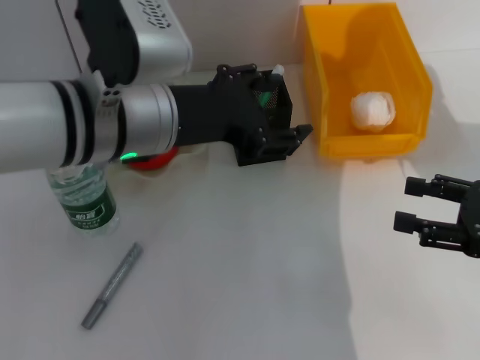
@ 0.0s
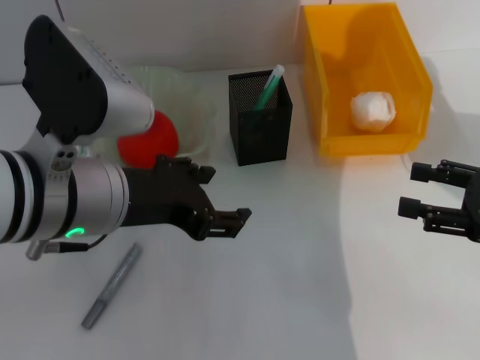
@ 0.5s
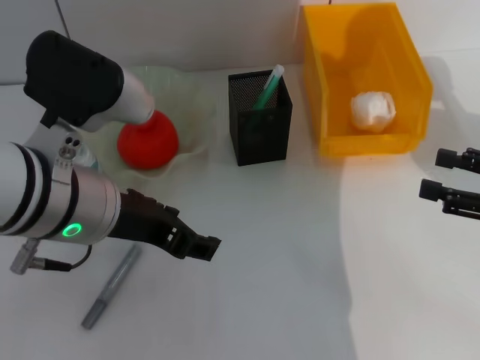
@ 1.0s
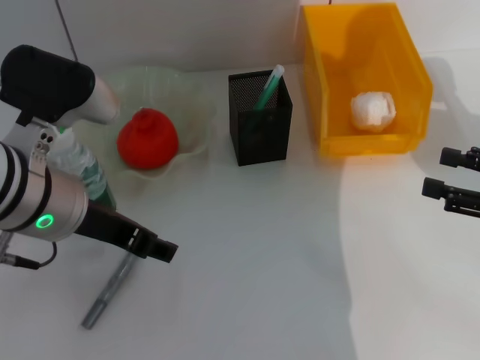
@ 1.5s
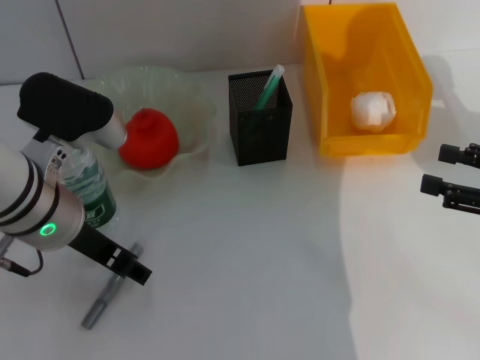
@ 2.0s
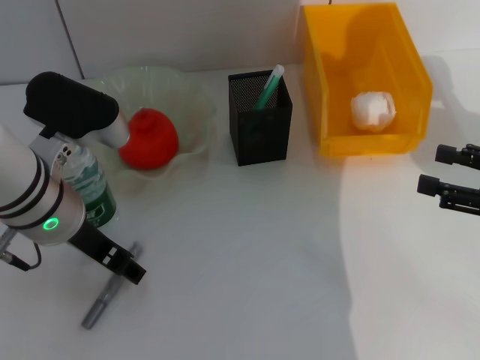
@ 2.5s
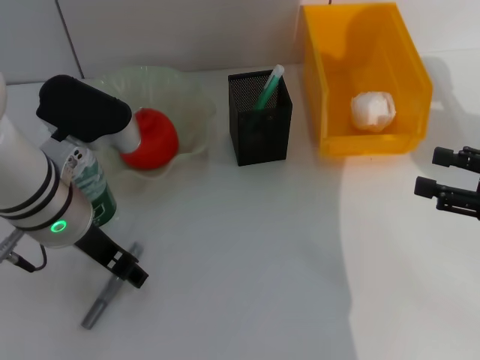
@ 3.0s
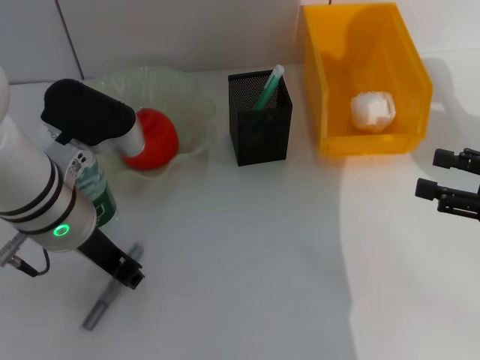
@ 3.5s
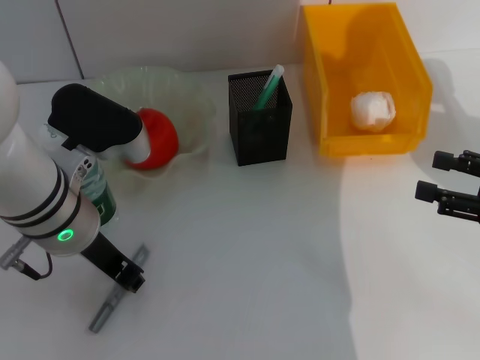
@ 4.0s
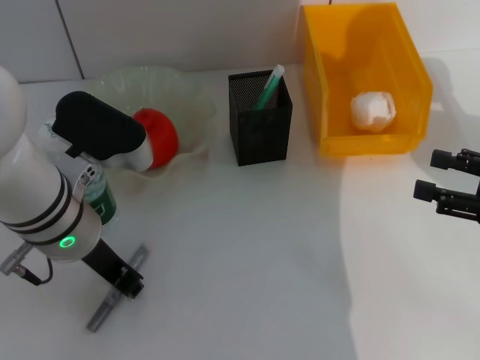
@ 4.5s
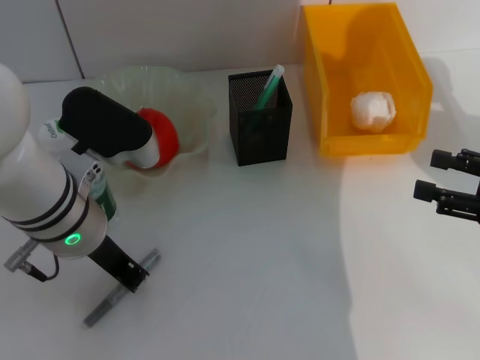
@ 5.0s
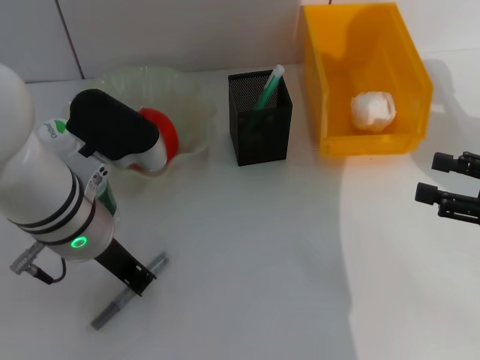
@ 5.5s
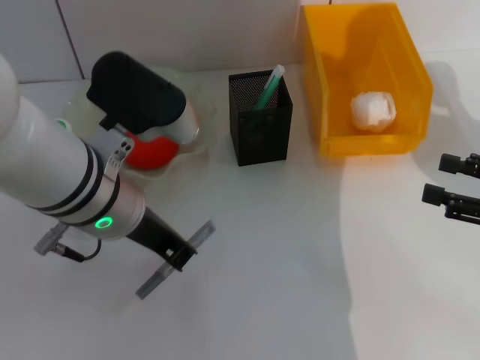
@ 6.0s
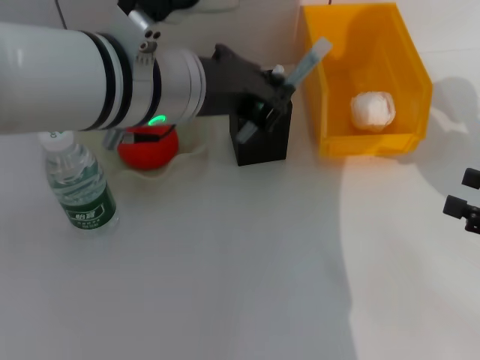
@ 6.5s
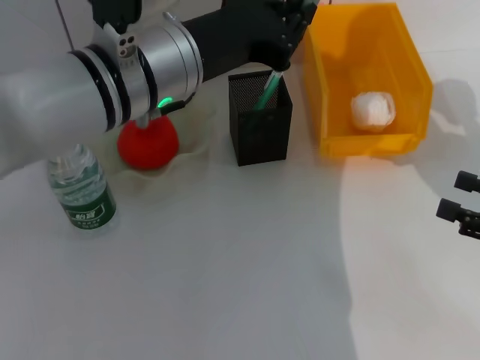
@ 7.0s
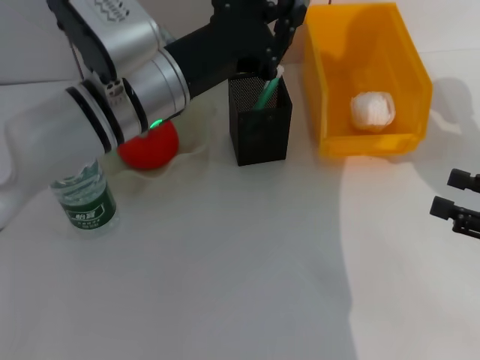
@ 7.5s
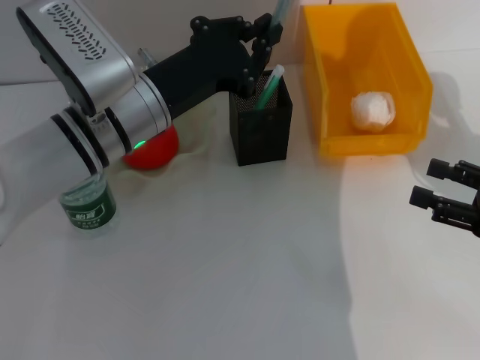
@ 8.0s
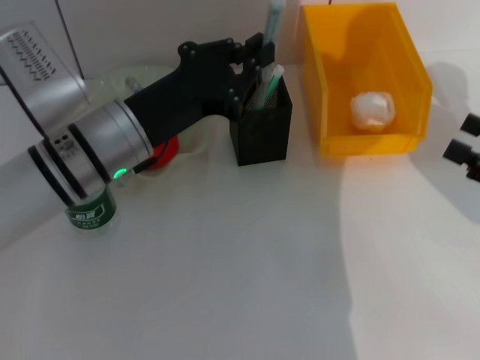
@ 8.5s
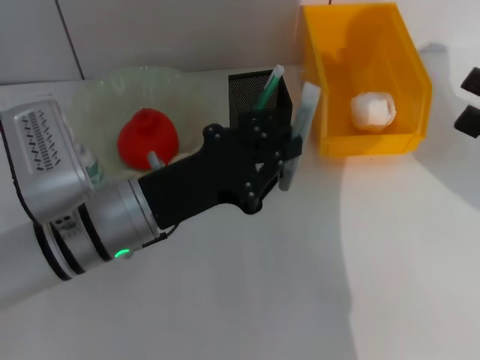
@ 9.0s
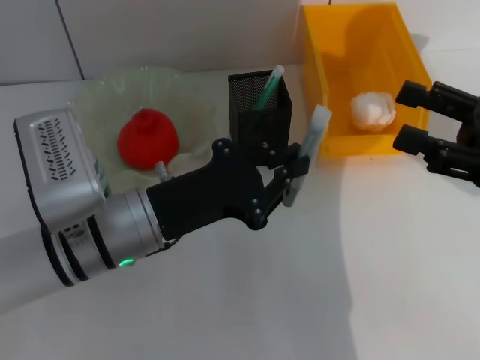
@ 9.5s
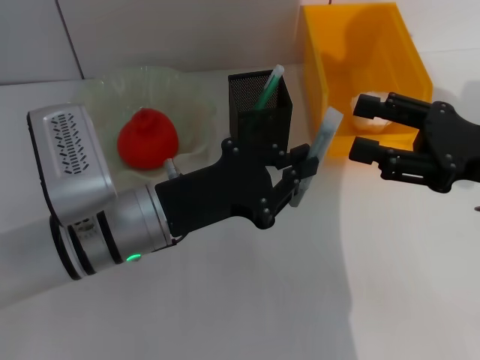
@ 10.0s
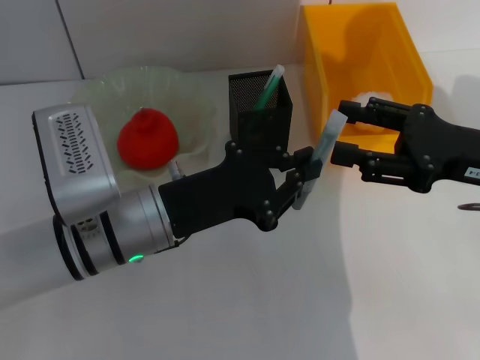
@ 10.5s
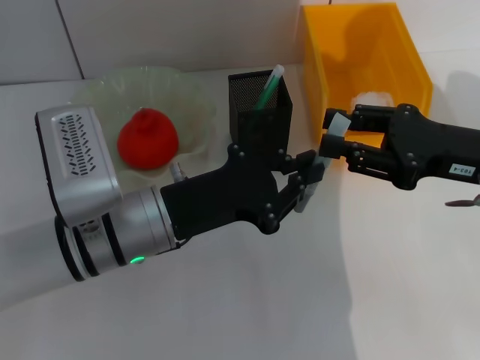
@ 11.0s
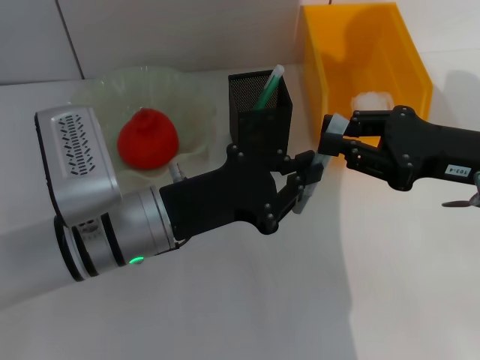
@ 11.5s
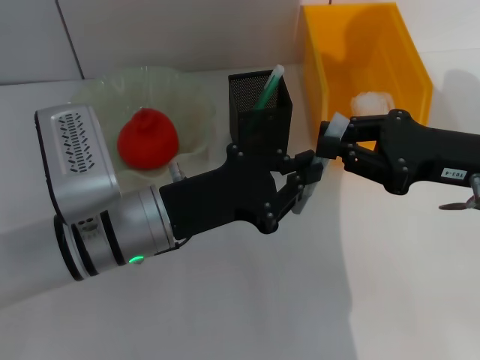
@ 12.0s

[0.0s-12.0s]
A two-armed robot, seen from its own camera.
Step, 0.5s to 4.5s: Grab the gray glue with the left hand.
0.0s to 2.0s: The left gripper shifts about 5 cm to the left.
2.0s to 4.0s: The left gripper closes its fingers.
4.0s to 6.0s: There are only small adjustments of the grippers.
6.0s to 8.0s: The left gripper shifts approximately 5 cm forward, and travels upward and back again, some 10 cm each way.
8.0s to 10.0s: The left gripper is displaced backward by about 10 cm, while the right gripper goes roughly 10 cm to the left and upward.
10.0s to 12.0s: The right gripper closes its fingers.

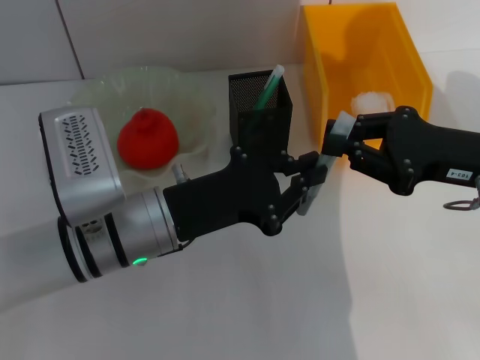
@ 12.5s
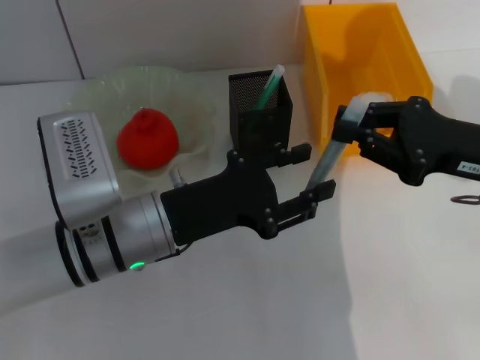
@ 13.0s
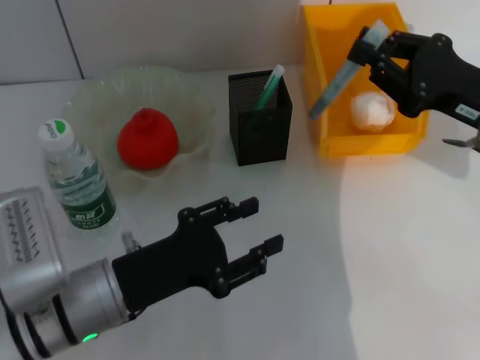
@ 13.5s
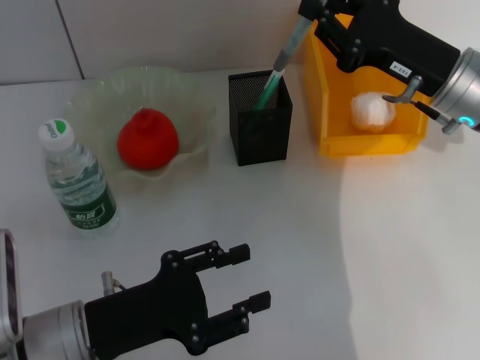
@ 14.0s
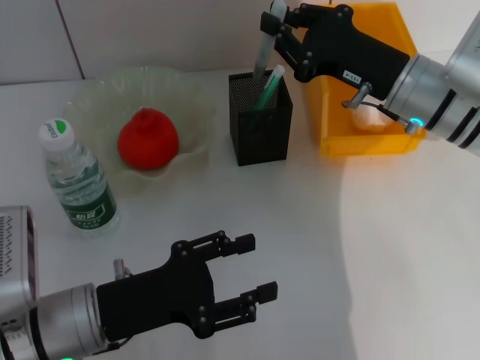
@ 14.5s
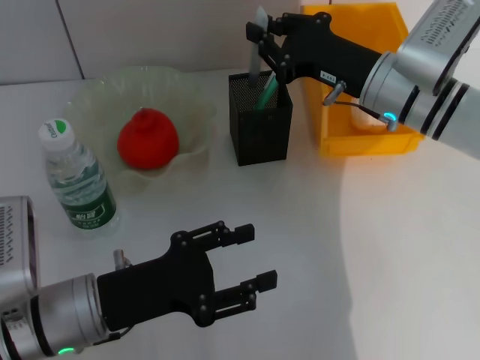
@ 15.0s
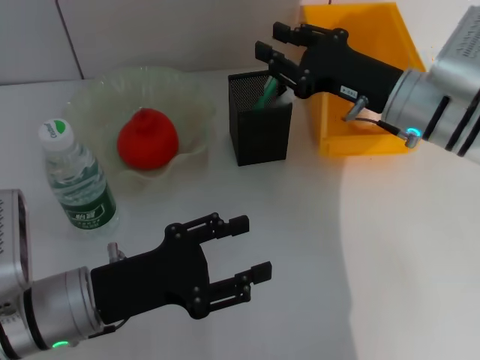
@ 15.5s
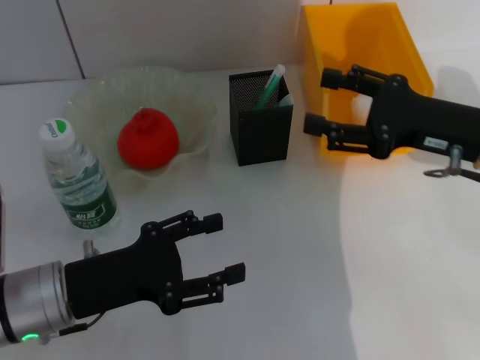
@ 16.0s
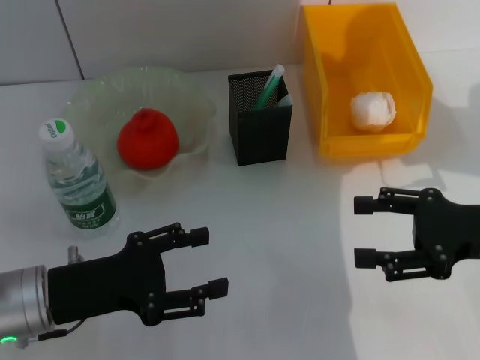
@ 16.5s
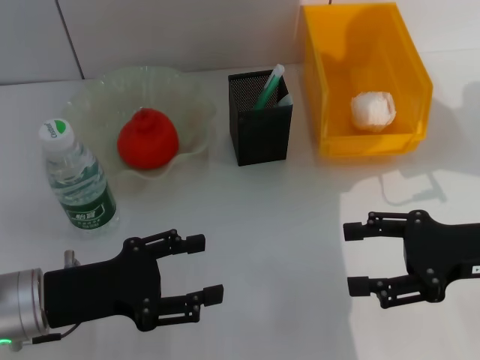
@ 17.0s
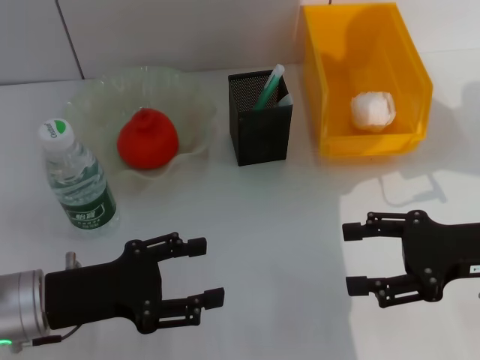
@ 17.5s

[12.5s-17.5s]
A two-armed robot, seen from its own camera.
Step, 13.5s to 15.5s: Place the gray glue into the pen holder with the right hand.
12.5s to 15.0s: The left gripper goes about 10 cm to the left and backward, and opens; the right gripper goes some 15 cm forward and to the left.
15.0s to 17.5s: The right gripper is displaced backward and to the right by approximately 20 cm, and opens. The left gripper changes place by roughly 5 cm.

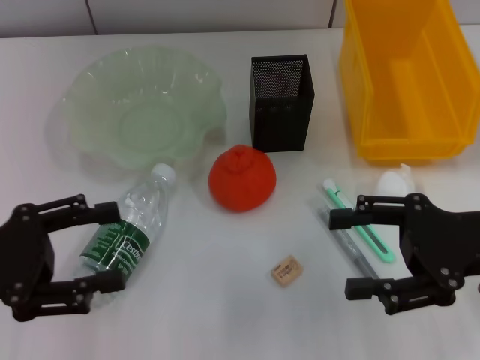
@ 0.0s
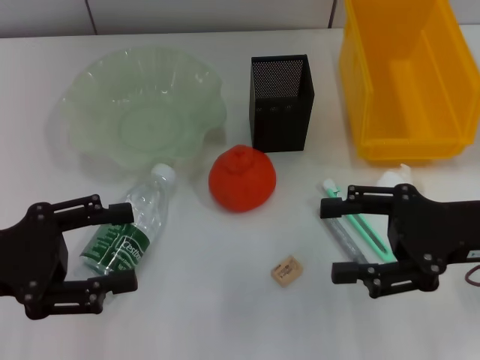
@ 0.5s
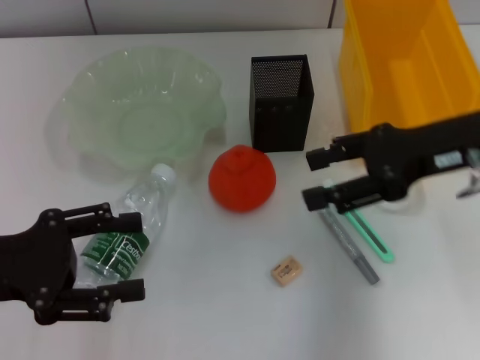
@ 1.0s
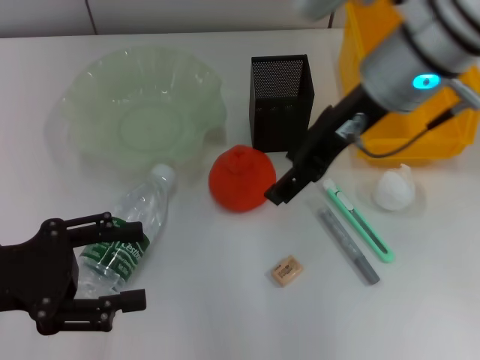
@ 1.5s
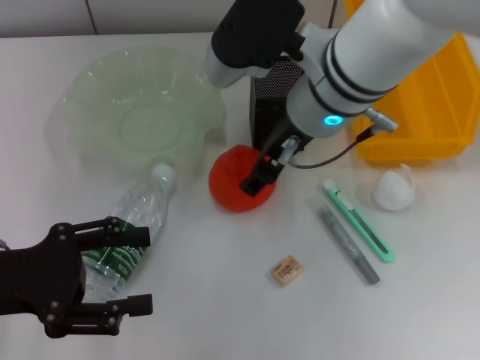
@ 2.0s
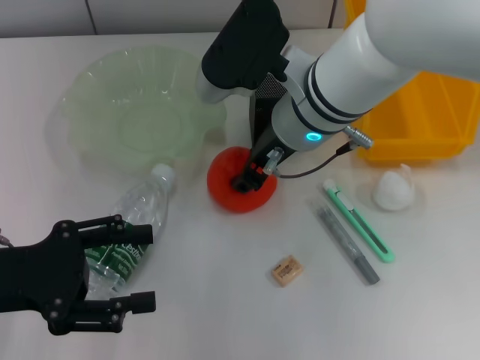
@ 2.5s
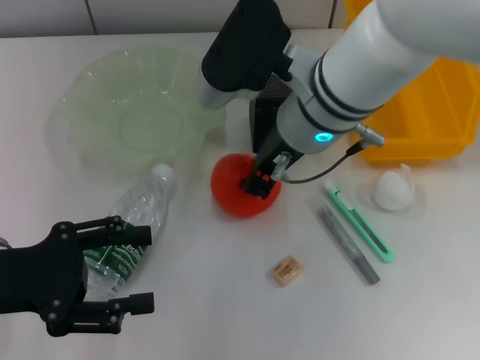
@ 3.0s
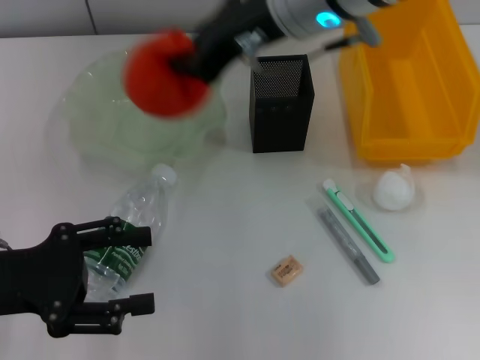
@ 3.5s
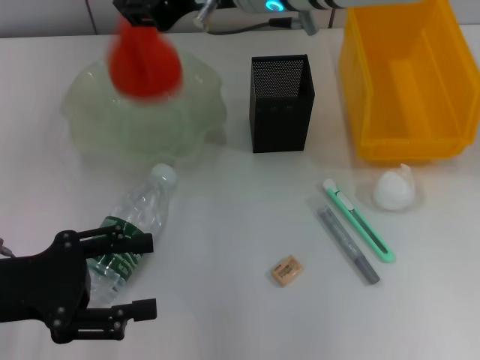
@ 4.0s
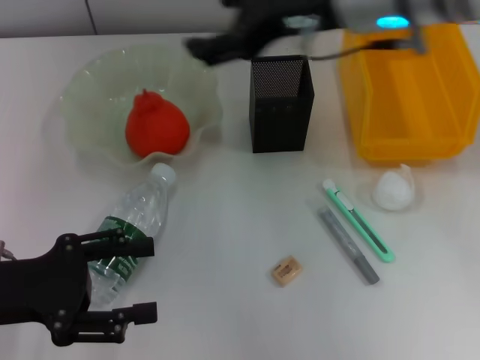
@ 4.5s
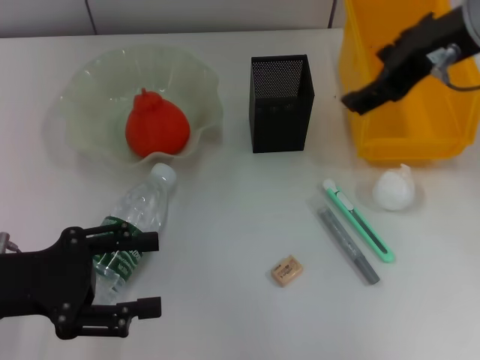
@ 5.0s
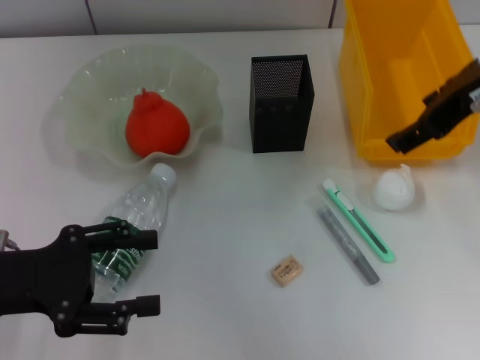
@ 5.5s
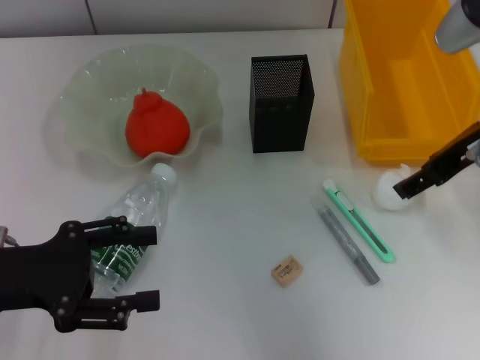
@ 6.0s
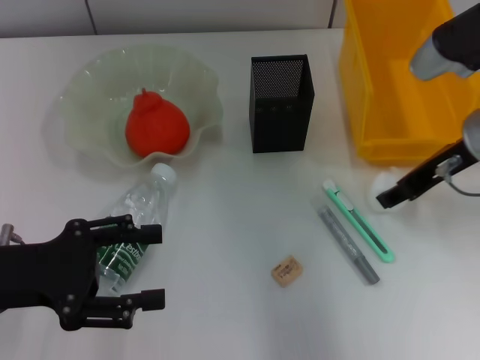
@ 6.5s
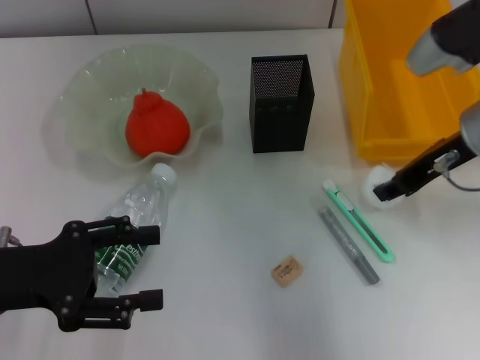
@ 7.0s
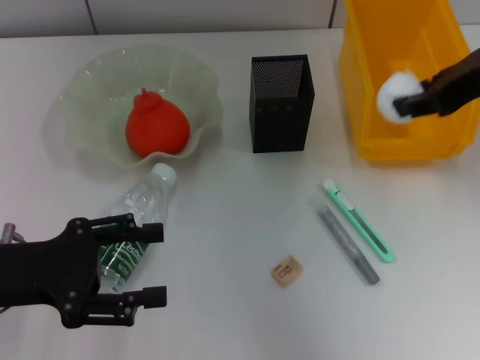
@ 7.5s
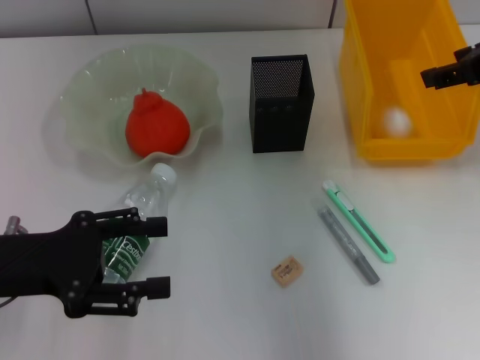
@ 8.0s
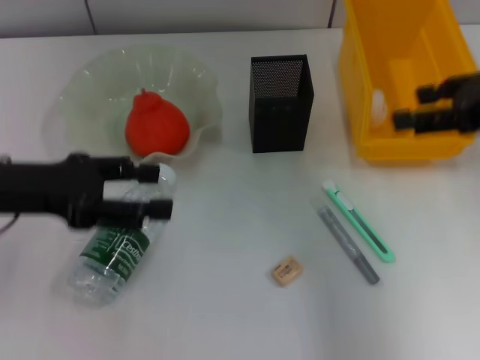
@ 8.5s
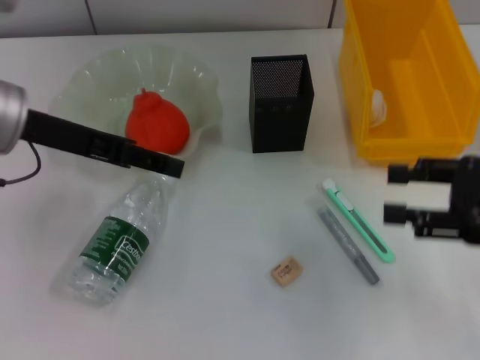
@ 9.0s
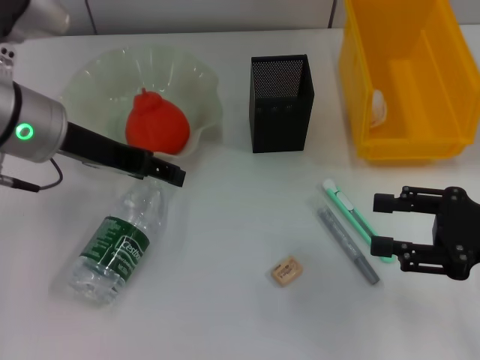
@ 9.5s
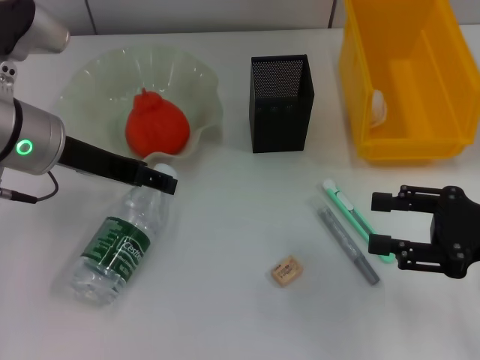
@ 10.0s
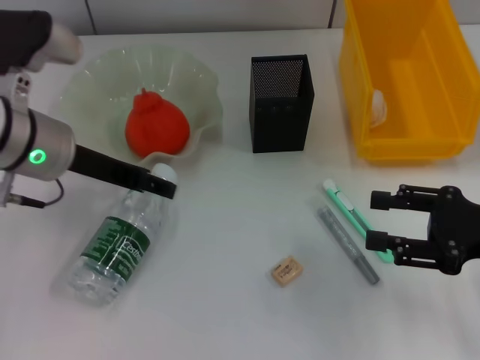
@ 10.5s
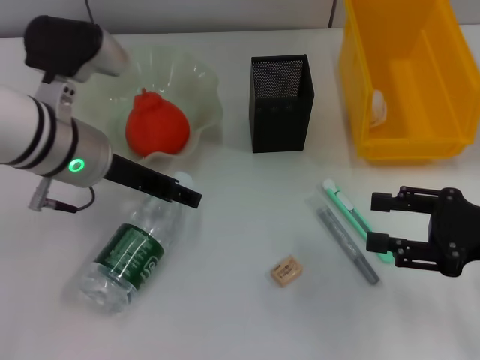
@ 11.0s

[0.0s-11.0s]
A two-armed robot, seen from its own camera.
Step, 0.0s to 2.5s: Grab the orange with the right hand.
Step, 3.0s to 4.0s: Place the orange into the fruit bowl with the right hand.
Step, 4.5s to 6.5s: Grab the paper ball with the right hand.
Step, 7.0s to 7.5s: Place the paper ball into the trash can with the right hand.
0.0s to 2.0s: The right gripper goes some 25 cm to the left and forward.
2.0s to 3.5s: The right gripper moves upward, some 10 cm, and closes up.
3.5s to 5.5s: The right gripper travels to the right by roughly 15 cm, and opens.
5.5s to 7.5s: The right gripper moves approximately 10 cm downward and comes back, and closes up.
7.5s to 9.0s: The right gripper is displaced downward, backward and to the right by approximately 15 cm, and opens; the left gripper is displaced forward, upward and to the right by roughly 15 cm.
9.0s to 11.0s: The left gripper travels to the right and downward by roughly 10 cm.
